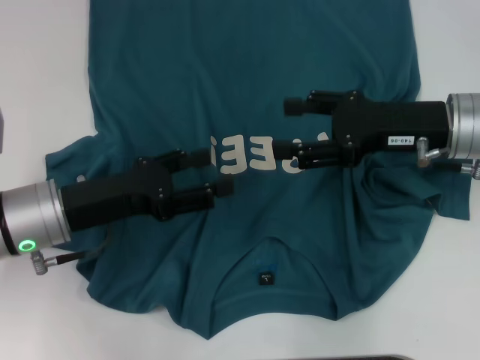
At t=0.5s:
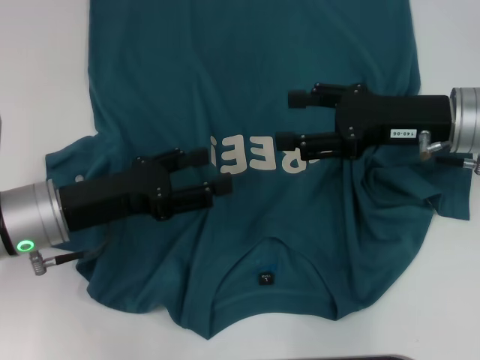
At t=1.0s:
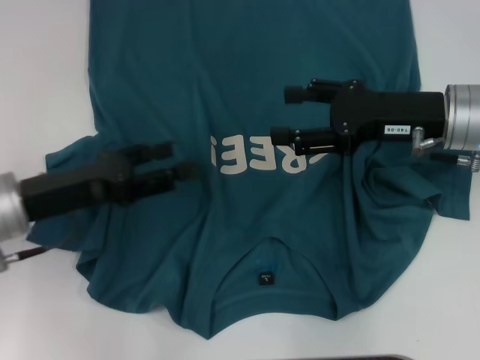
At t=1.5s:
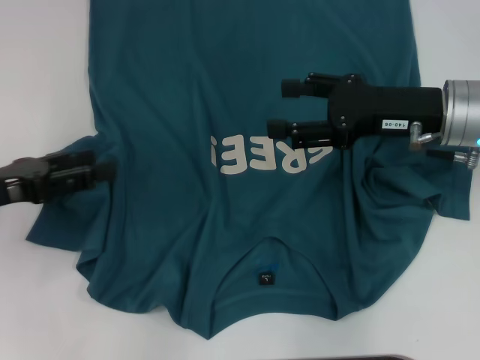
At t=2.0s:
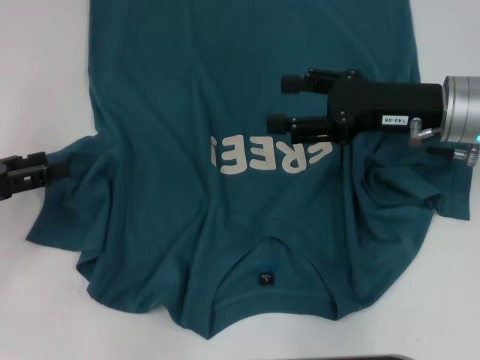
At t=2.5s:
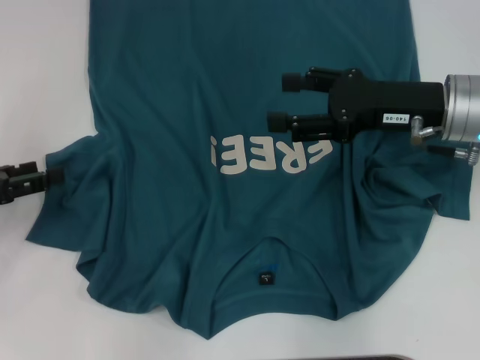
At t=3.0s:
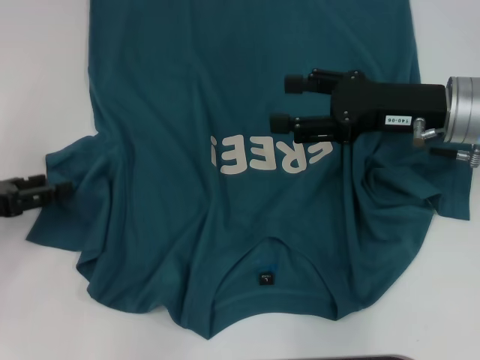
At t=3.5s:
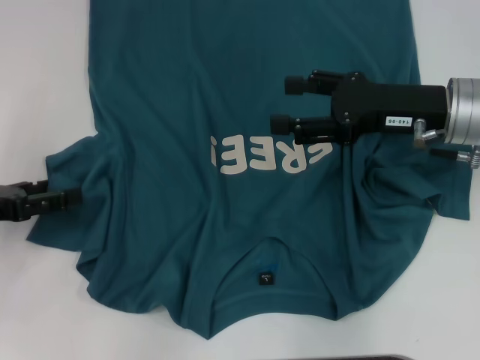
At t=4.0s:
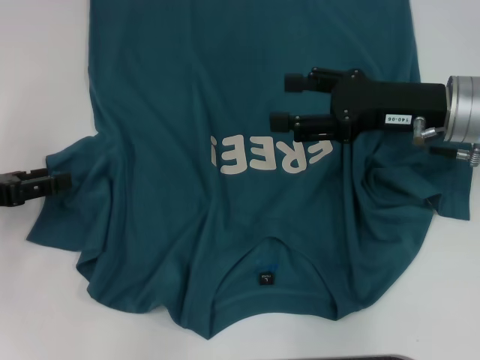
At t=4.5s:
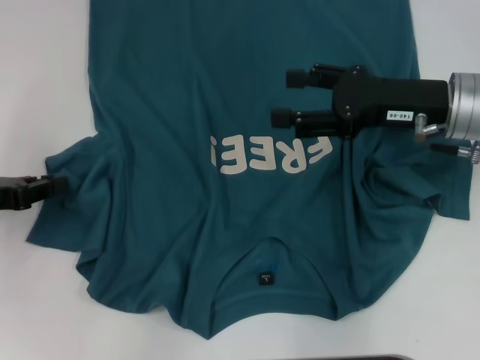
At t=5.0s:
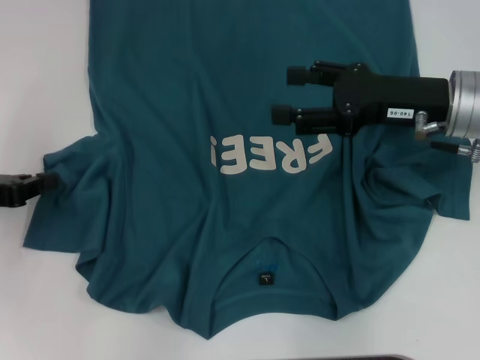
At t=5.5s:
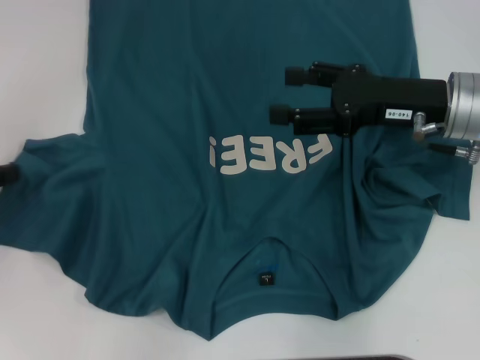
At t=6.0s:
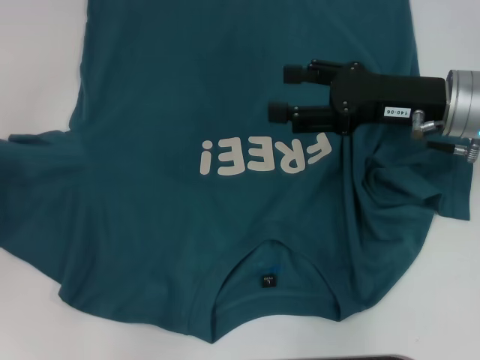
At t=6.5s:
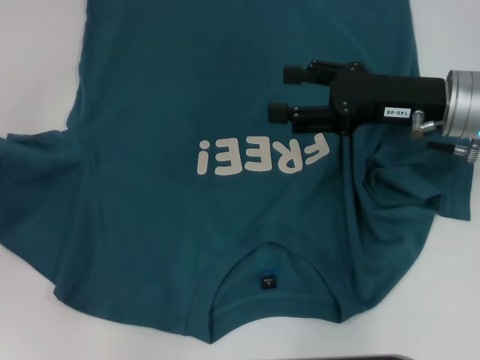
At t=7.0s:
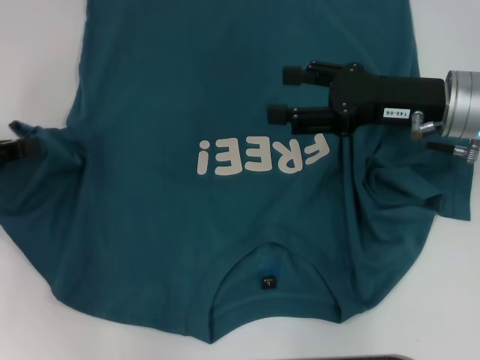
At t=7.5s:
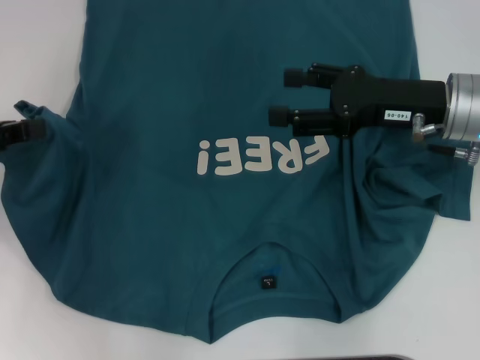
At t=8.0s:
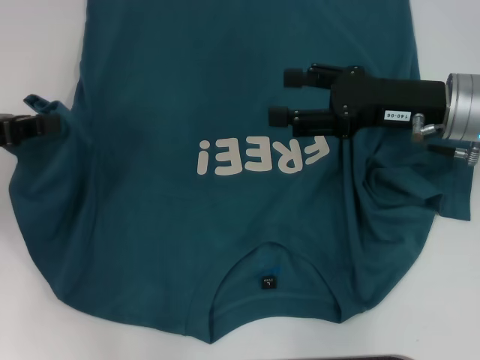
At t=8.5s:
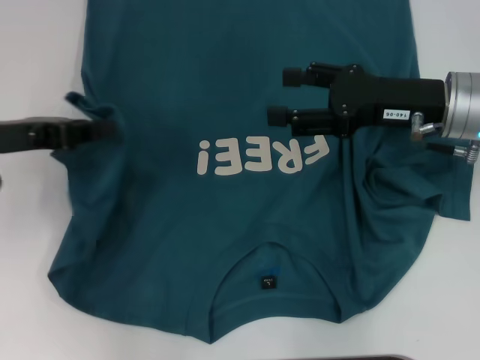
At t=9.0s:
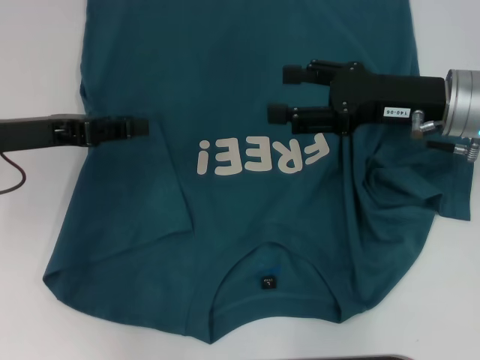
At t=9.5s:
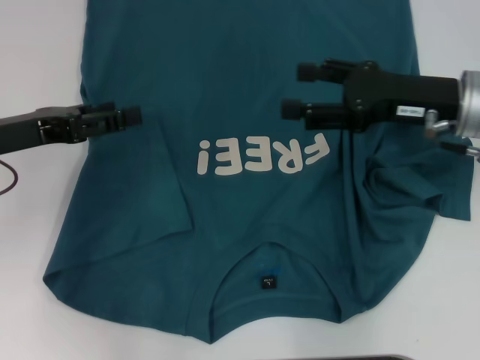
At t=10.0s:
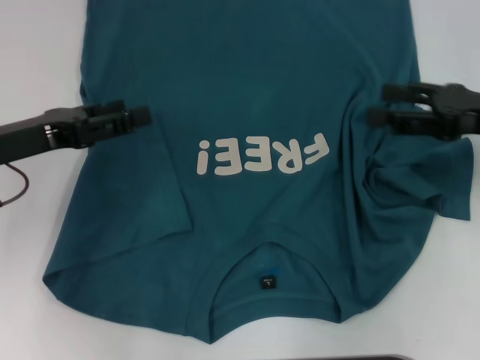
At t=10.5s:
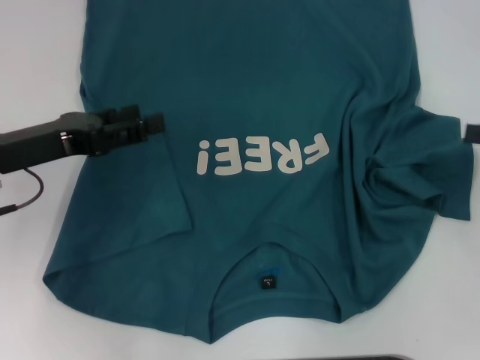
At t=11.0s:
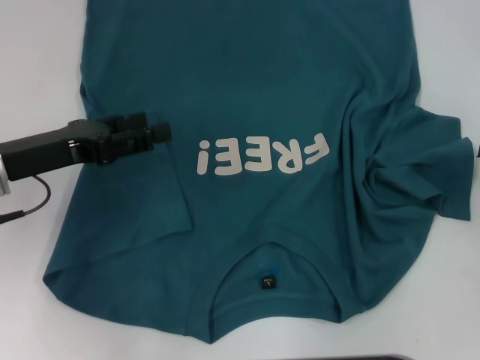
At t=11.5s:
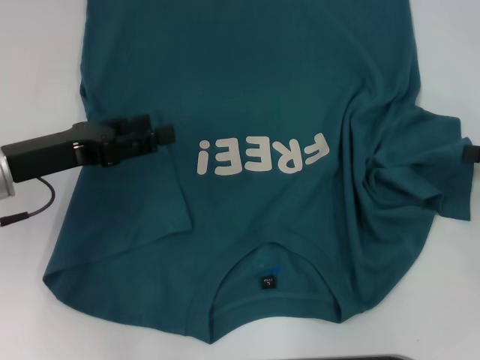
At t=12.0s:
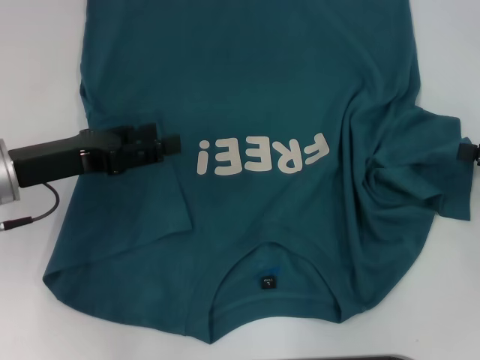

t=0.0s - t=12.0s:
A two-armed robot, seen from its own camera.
Step, t=0.0s - t=9.0s: Fold the bottom left sleeve with your left hand.
t=0.0s - t=2.0s: The left gripper moves to the left, about 15 cm.
t=2.0s - t=4.0s: The grippers stay close to where they were, moving slightly.
t=4.0s - t=6.0s: The left gripper changes place by approximately 5 cm, and closes up.
t=6.0s - t=8.0s: The left gripper goes approximately 5 cm to the right.
t=8.0s - t=10.0s: The left gripper travels to the right by some 5 cm, and opens. The right gripper heads to the right, covering roughly 10 cm.
t=10.0s - t=12.0s: The right gripper heads to the right, covering some 10 cm.

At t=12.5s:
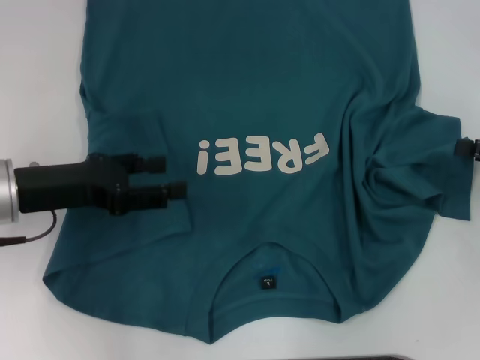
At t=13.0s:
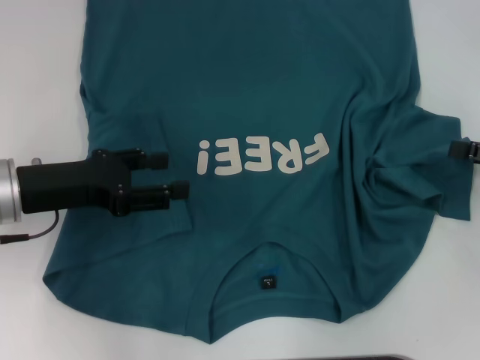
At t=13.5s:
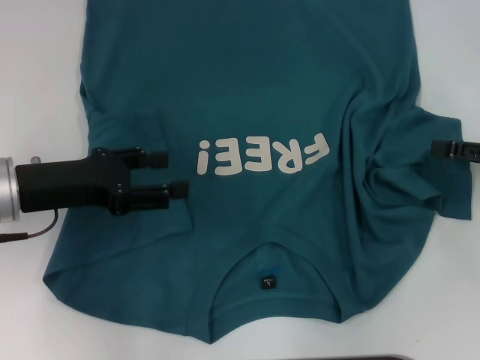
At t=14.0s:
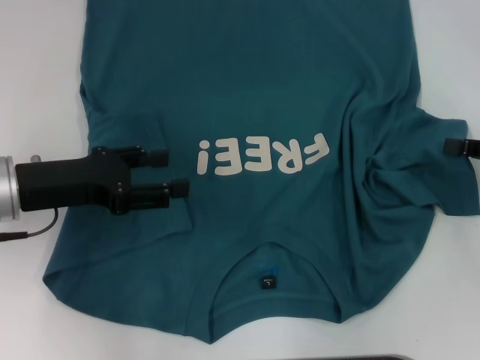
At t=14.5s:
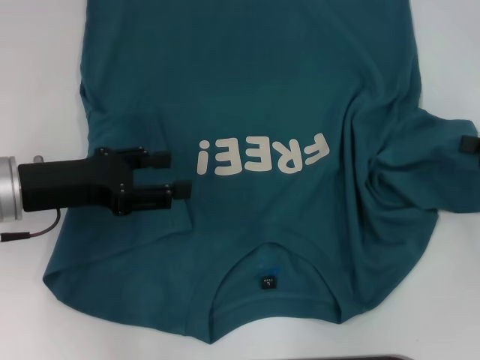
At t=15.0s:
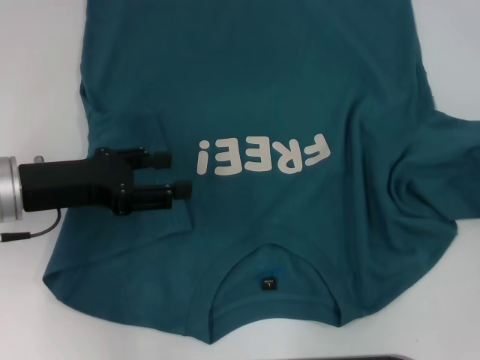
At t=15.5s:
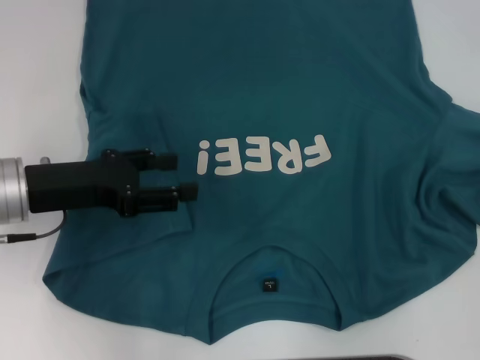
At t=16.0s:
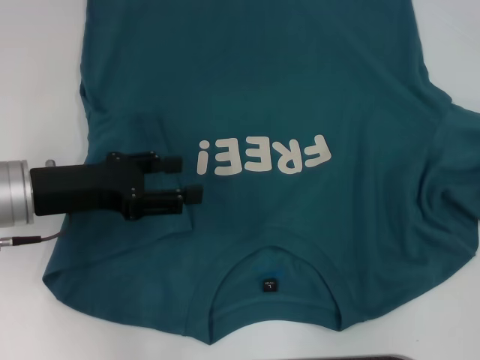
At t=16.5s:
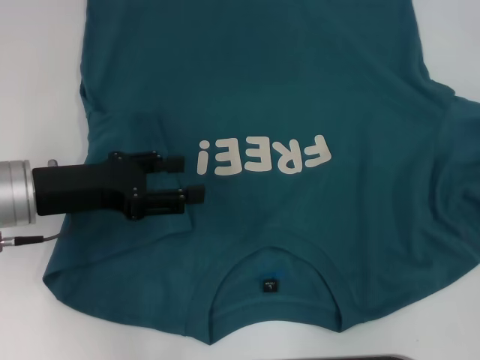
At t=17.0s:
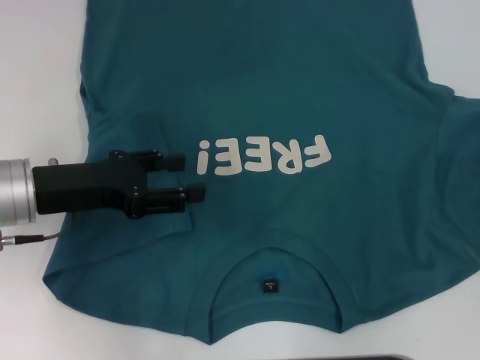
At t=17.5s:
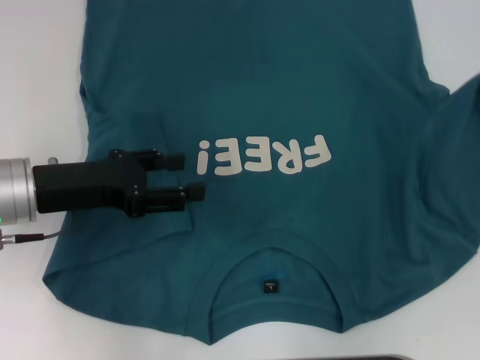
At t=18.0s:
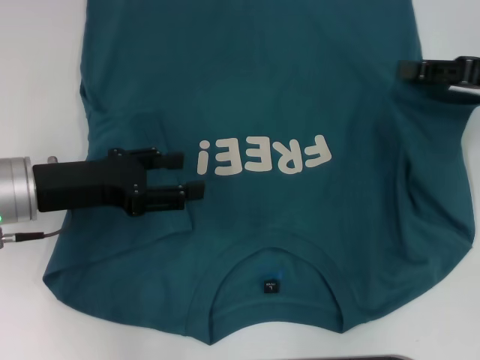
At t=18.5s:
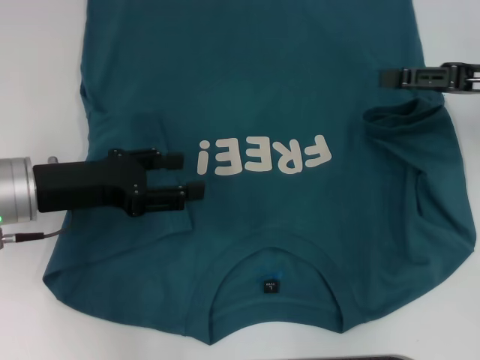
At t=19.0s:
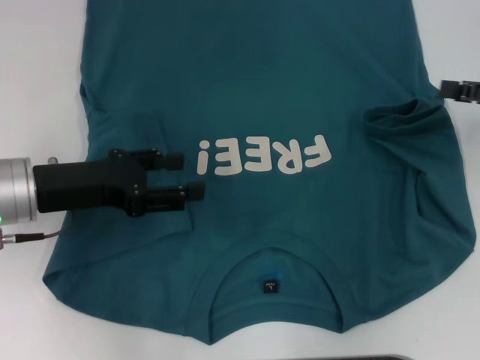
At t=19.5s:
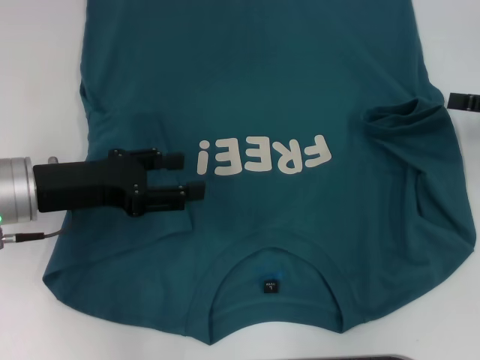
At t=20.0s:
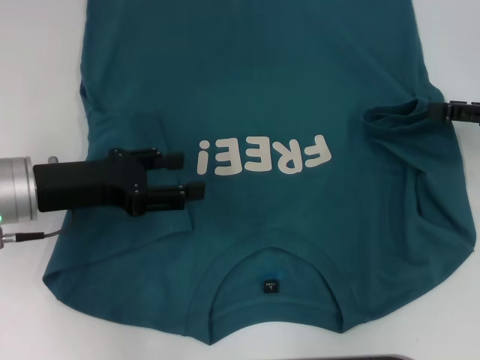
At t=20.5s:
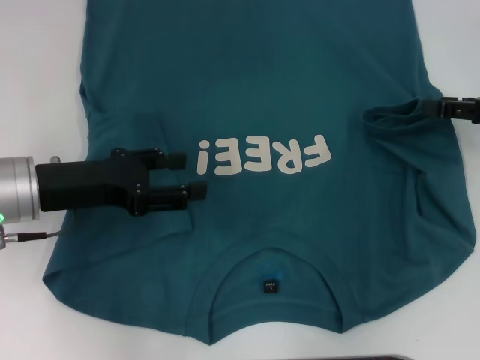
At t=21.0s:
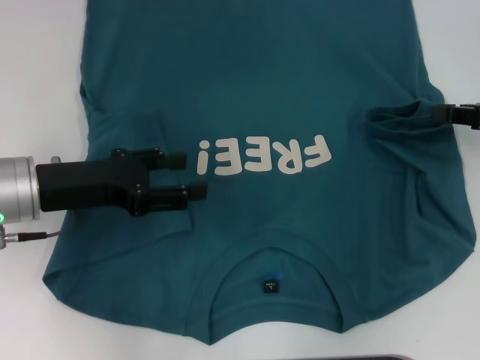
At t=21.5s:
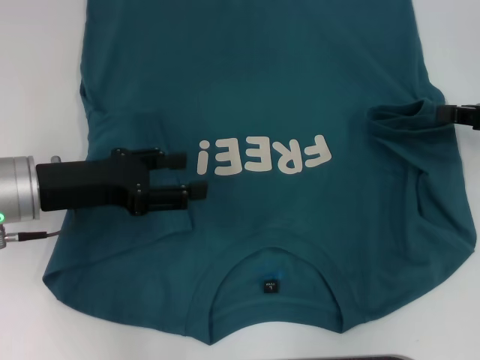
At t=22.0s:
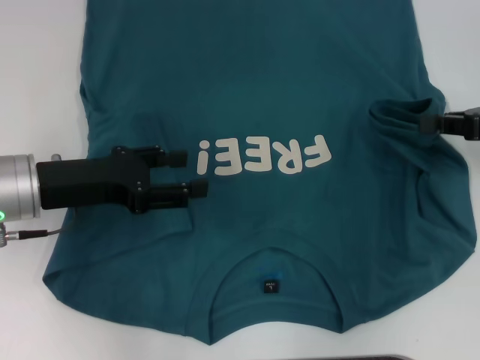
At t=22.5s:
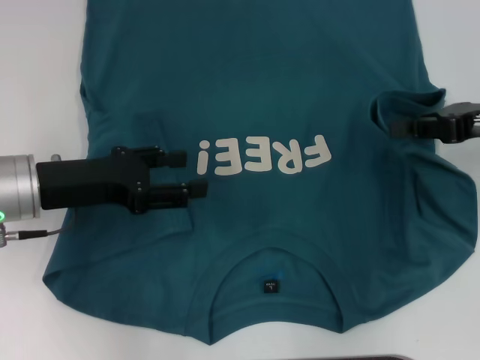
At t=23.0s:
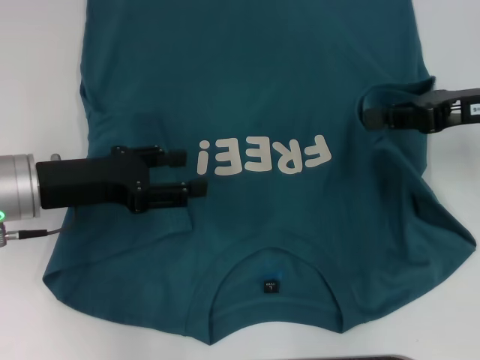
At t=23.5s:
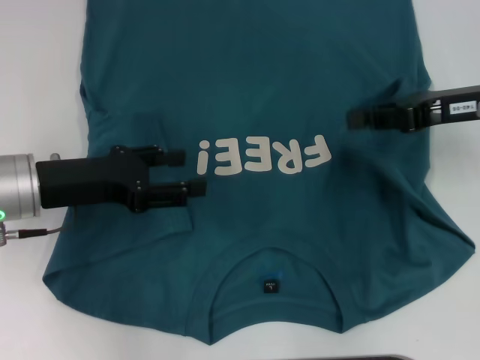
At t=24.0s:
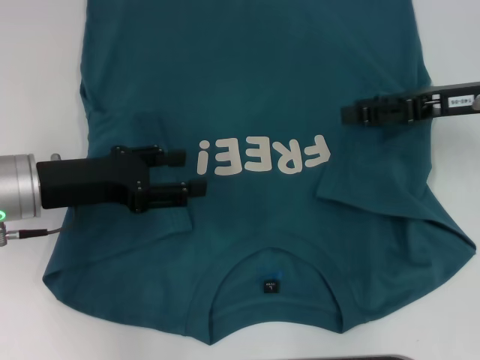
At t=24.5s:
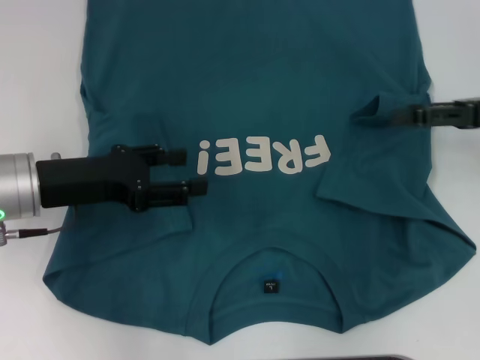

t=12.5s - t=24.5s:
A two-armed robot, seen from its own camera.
Step, t=12.5s - t=23.5s: Fold the bottom right sleeve to the right.
t=12.5s - t=14.5s: The right gripper closes up.
t=14.5s - t=16.5s: The right gripper travels to the right by about 5 cm.
t=16.5s - t=18.5s: The right gripper travels to the left and forward by approximately 15 cm, and opens its fingers.
t=20.5s - t=22.5s: The right gripper closes.
t=22.5s - t=24.5s: The right gripper opens.

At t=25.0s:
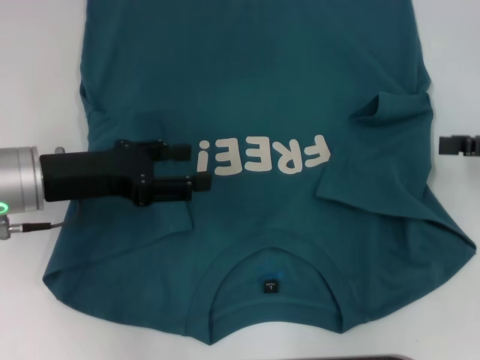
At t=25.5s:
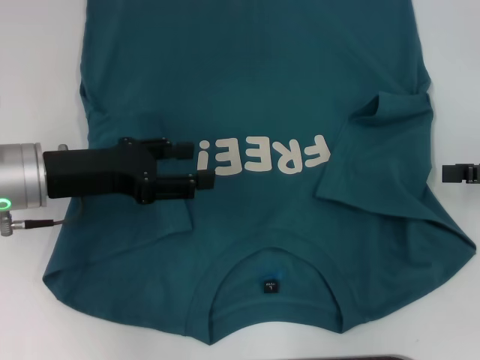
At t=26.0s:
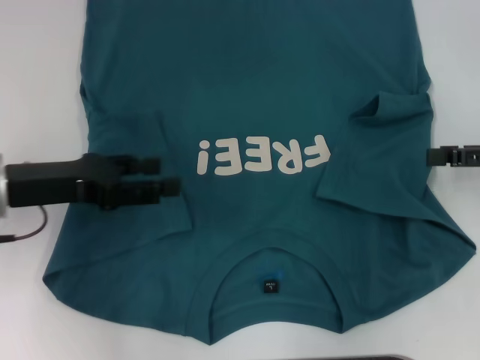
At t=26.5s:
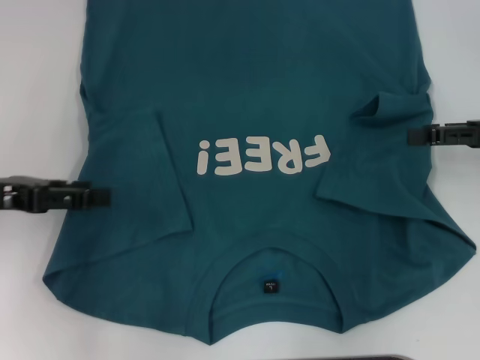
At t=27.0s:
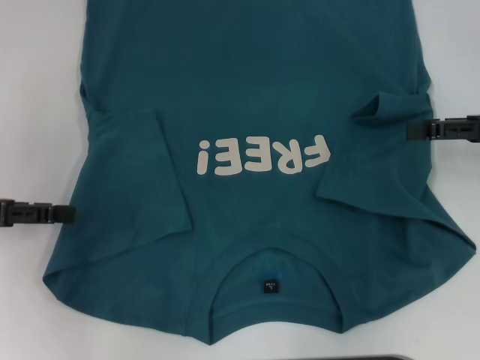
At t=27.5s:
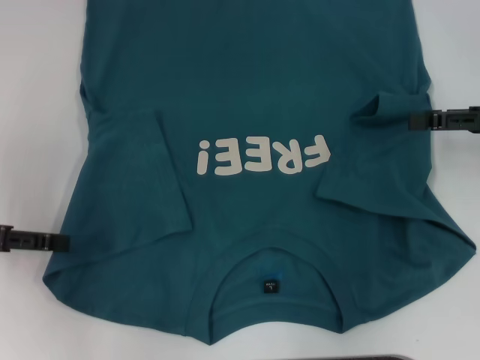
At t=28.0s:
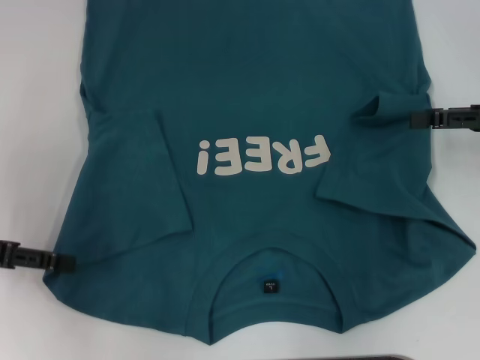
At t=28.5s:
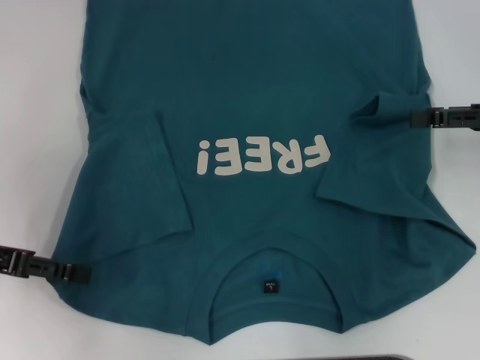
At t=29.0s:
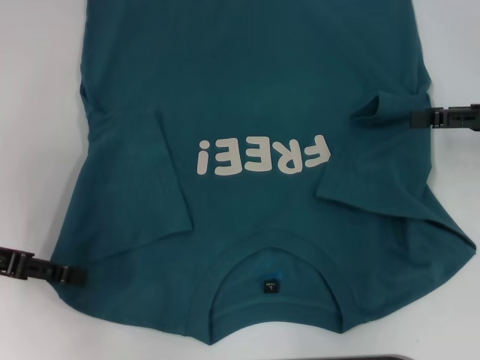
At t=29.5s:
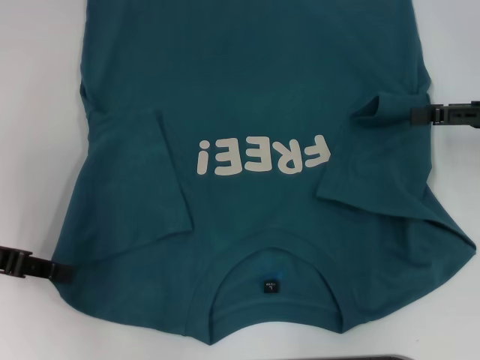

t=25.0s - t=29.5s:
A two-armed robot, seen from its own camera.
t=25.0s - t=27.0s: The left gripper heads to the left, covering approximately 10 cm.
t=27.0s - t=29.5s: The left gripper closes up.